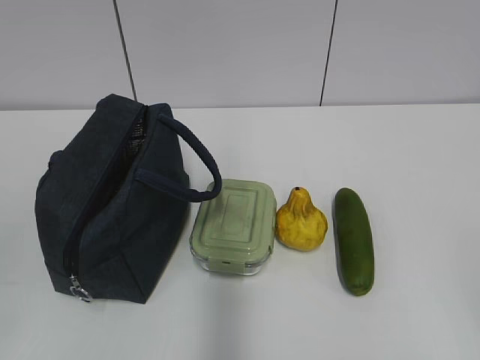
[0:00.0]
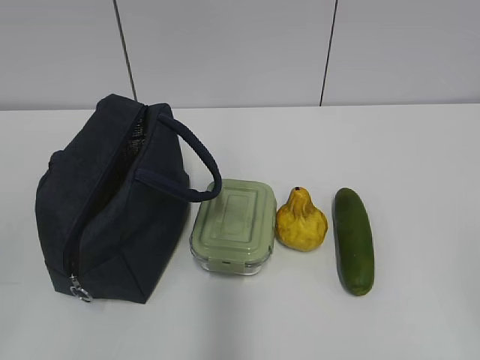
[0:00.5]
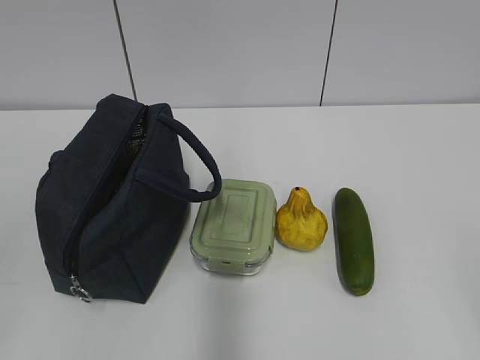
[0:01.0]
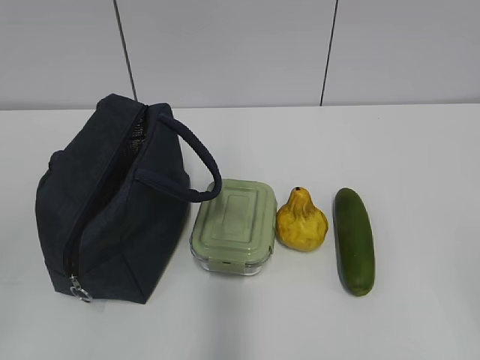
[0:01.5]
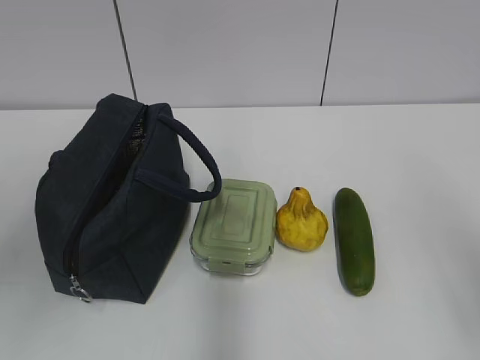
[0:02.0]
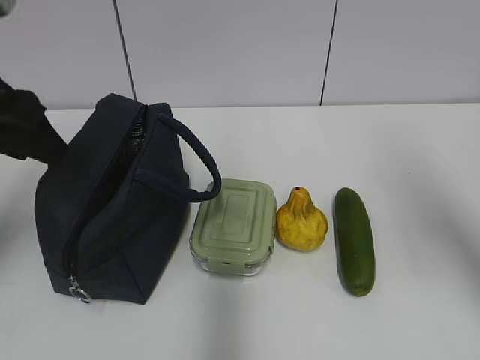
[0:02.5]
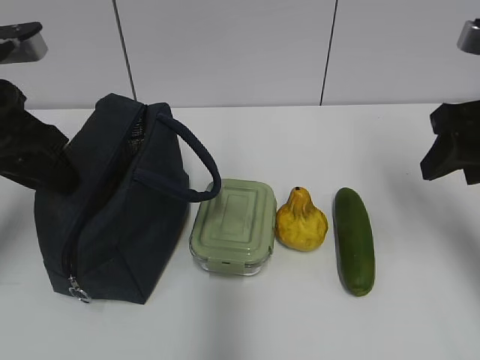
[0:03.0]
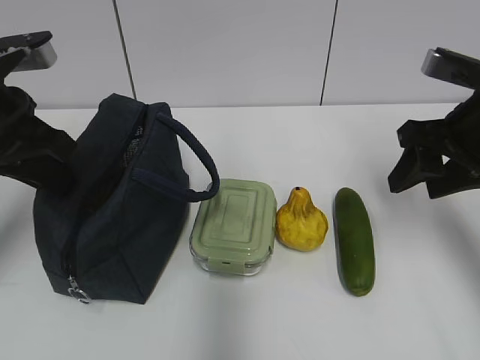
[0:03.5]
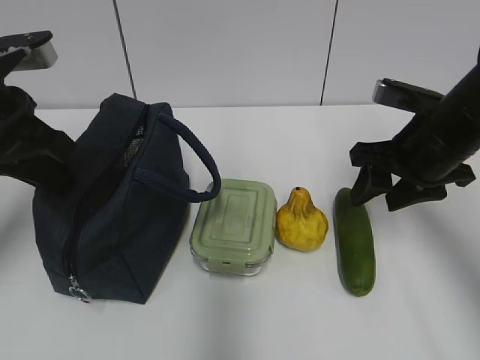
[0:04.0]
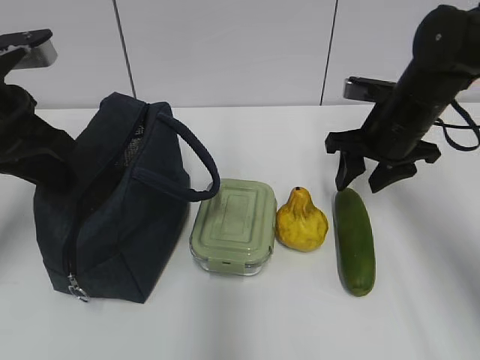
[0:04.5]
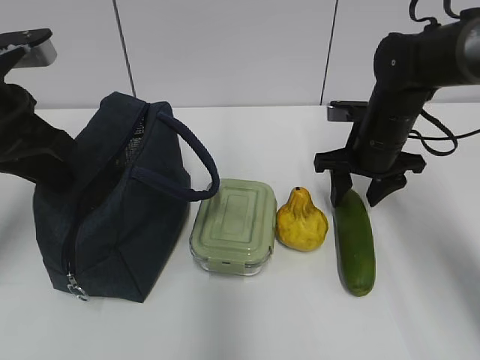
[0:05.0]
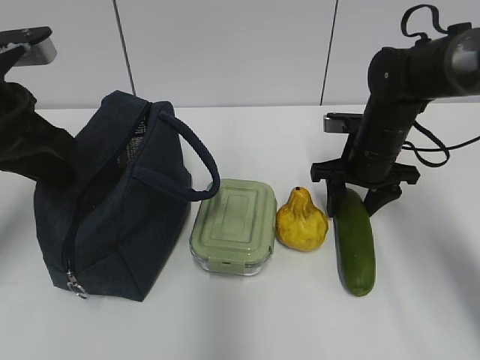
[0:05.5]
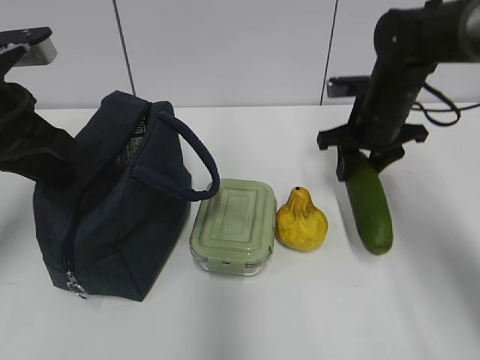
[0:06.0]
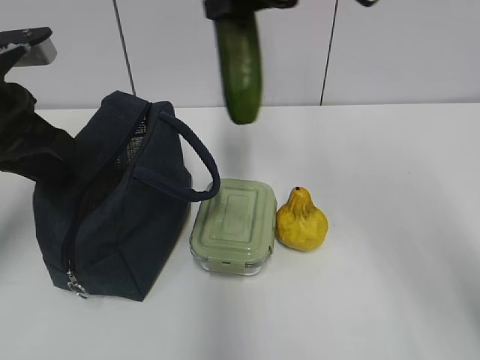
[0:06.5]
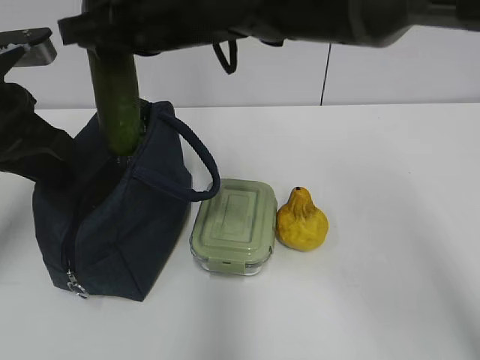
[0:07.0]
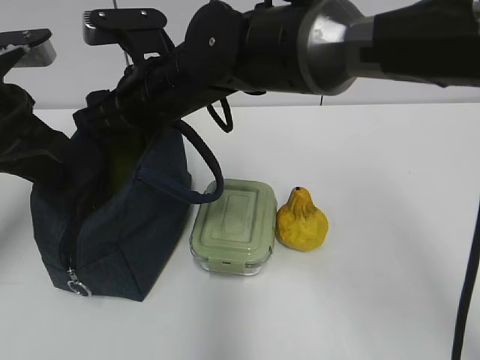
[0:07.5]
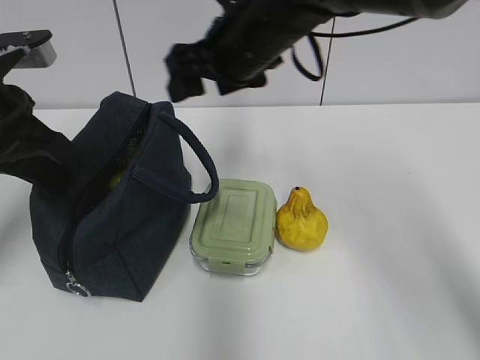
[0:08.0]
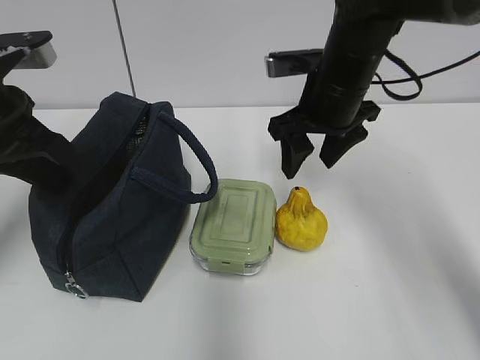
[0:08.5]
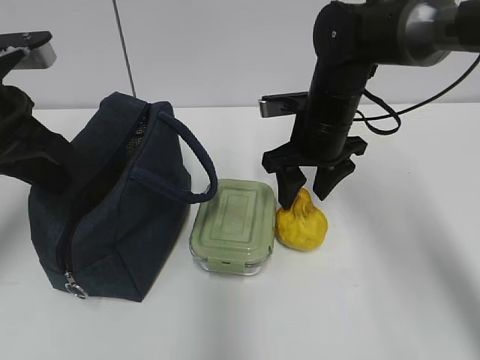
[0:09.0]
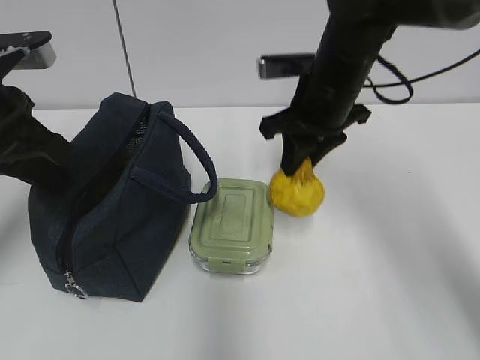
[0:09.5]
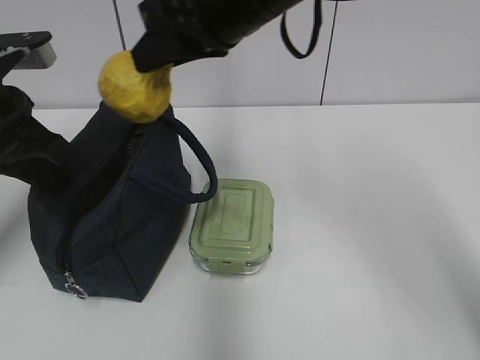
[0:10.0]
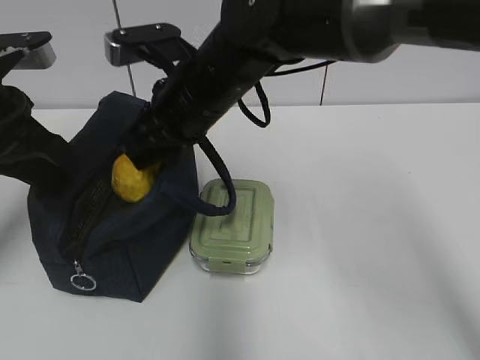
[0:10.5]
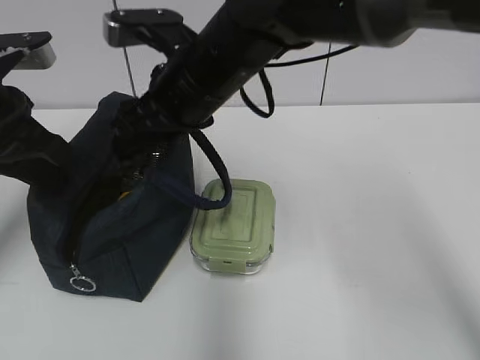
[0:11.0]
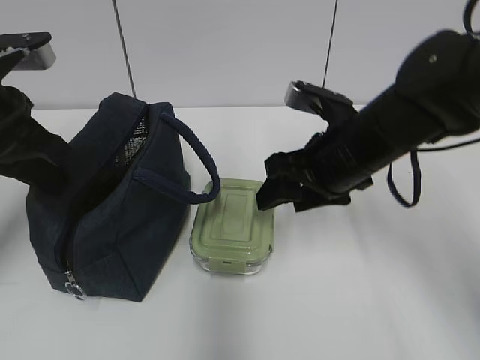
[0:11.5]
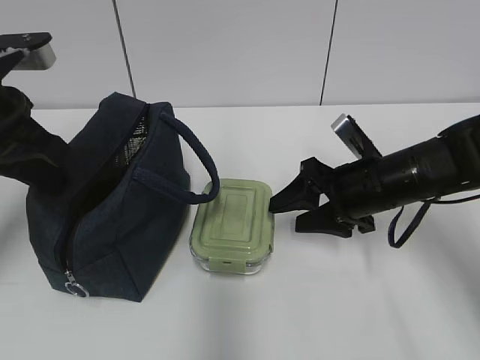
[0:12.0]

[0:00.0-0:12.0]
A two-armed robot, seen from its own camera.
Step, 0:00.0 to 0:03.0: Grab the lunch bag with your left hand.
Step, 0:03.5 to 0:05.5: Grab the cucumber with your right hand.
Step, 0:06.0 to 0:07.5: Place it into the bag with your right hand.
Step, 0:08.0 to 0:09.0: Grab the pear with your right hand.
Step, 0:09.5 to 0:10.5: Place it into the bag with your right hand.
0:02.0 to 0:04.0: The right gripper travels forward by approximately 25 cm, while the left gripper is displaced forward and downward by some 20 cm, and closes.
0:04.0 to 0:06.0: The right gripper travels forward by some 10 cm.
0:06.0 to 0:08.0: The right gripper heads to the left and upward, covering some 15 cm, and opens its fingers.
0:08.0 to 0:10.0: The right gripper heads upward and backward, covering some 10 cm, and closes its fingers.
0:10.0 to 0:12.0: The right gripper goes some 25 cm downward and to the right, and opens.

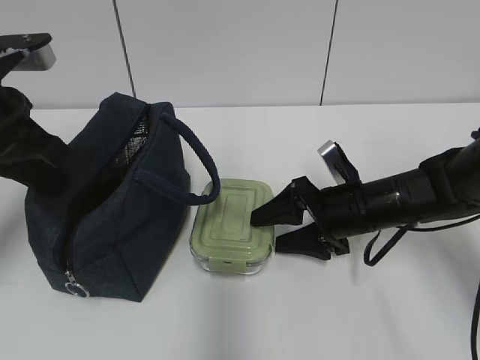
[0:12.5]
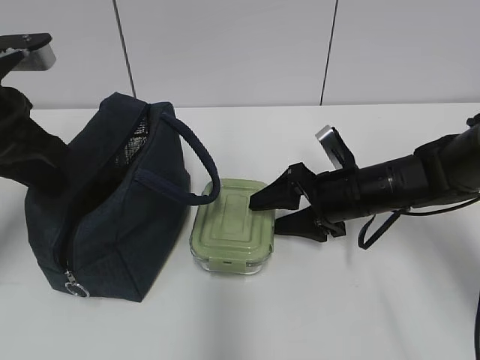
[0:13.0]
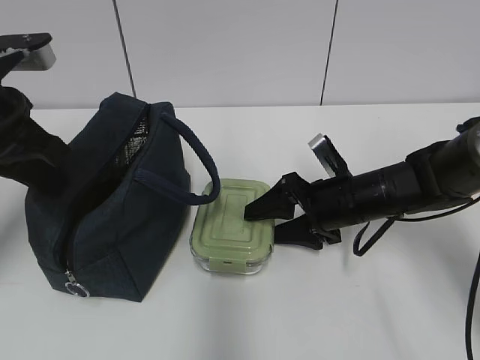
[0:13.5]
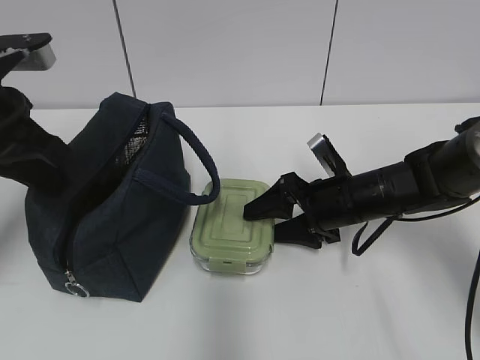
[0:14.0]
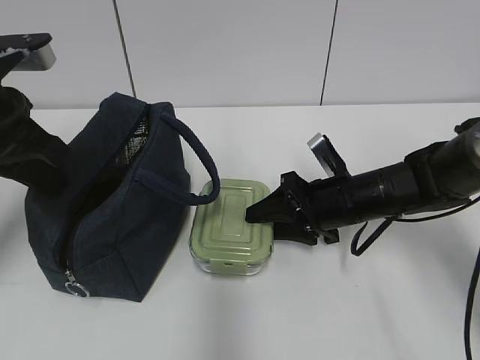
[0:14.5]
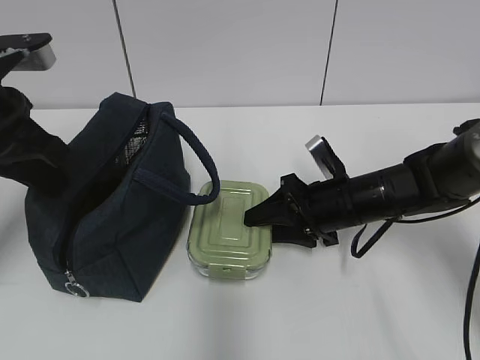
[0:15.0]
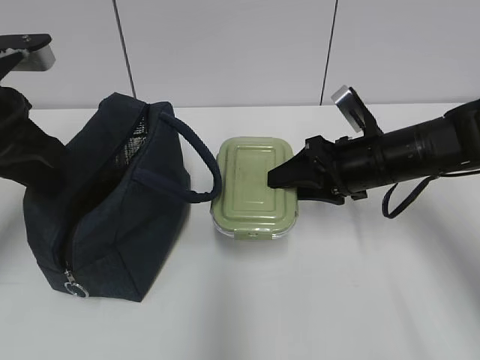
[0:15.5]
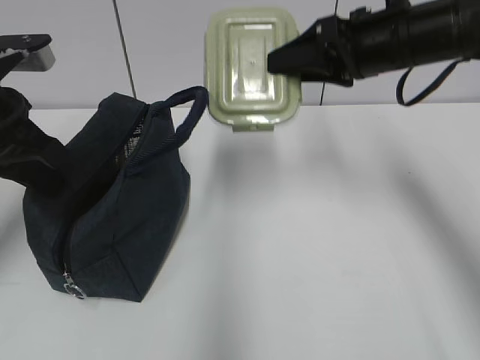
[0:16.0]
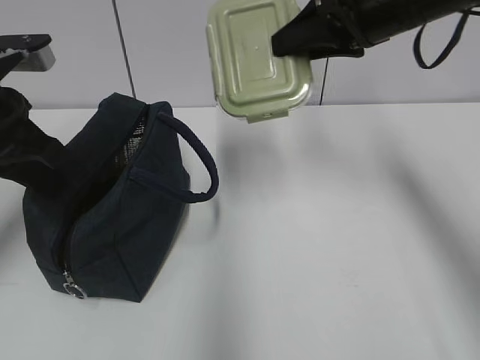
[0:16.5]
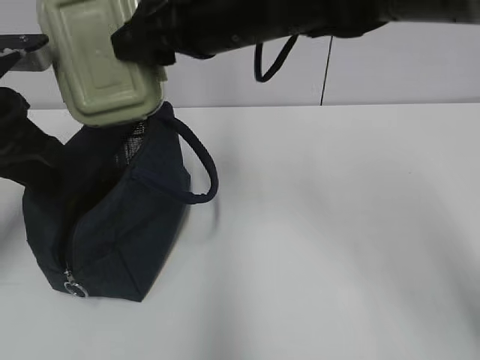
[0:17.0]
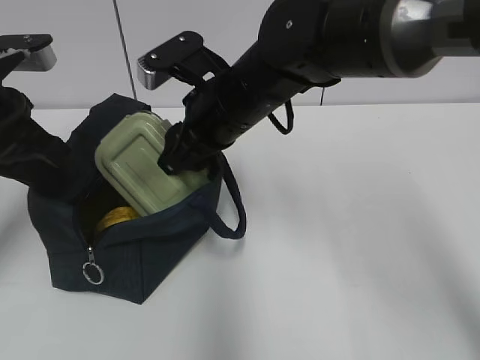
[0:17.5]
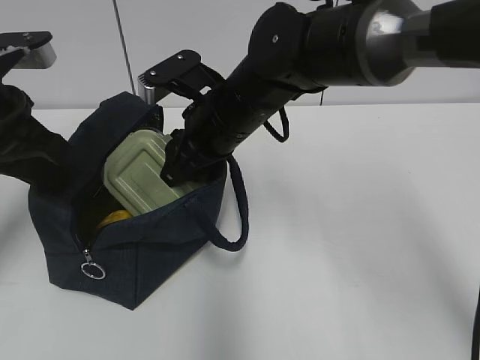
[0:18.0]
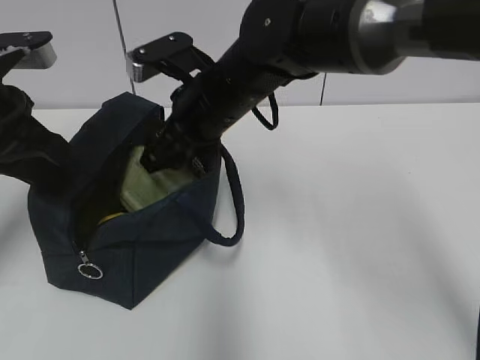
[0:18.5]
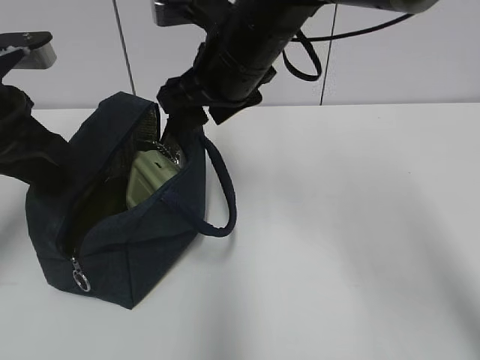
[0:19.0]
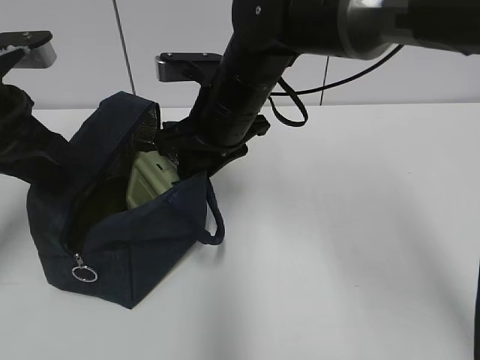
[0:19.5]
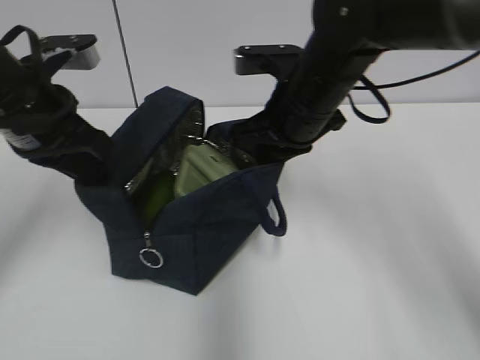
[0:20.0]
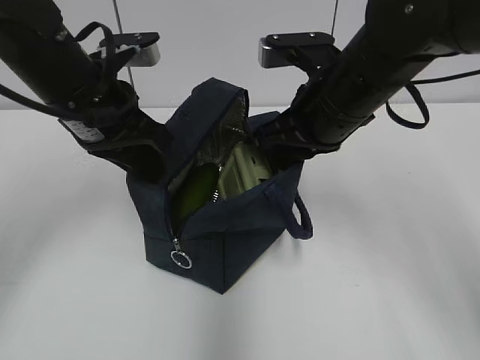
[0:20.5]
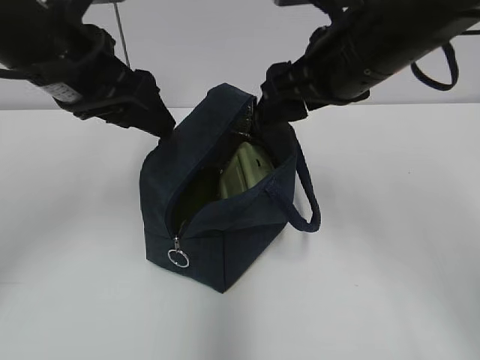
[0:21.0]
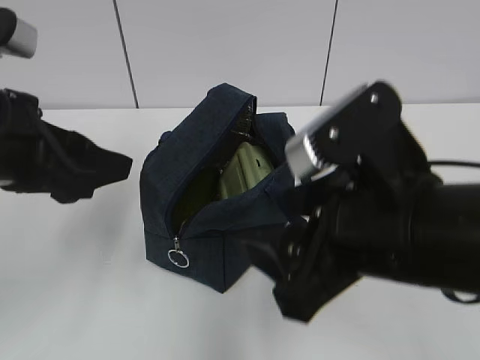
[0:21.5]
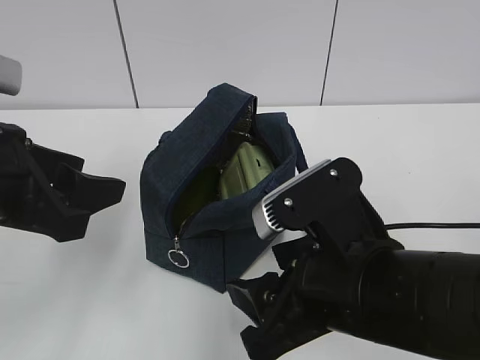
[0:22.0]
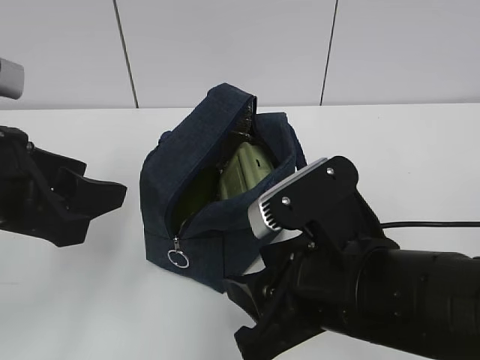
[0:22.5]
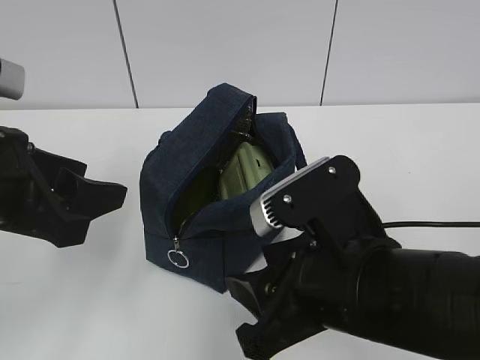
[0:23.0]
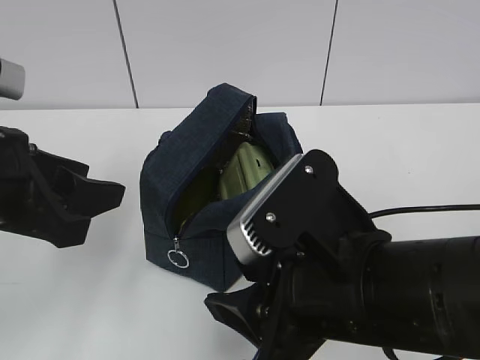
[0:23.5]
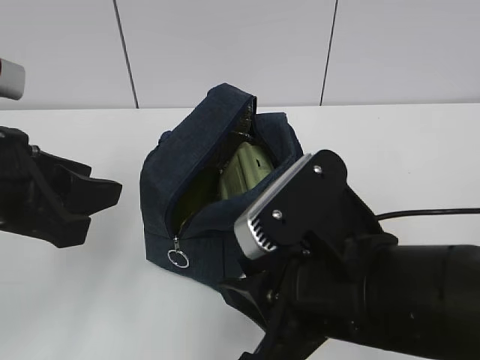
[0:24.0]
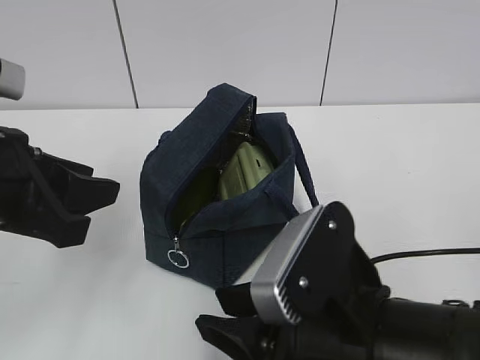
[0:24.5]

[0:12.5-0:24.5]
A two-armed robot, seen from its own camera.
Step, 0:12.5 to 0:15.0: Grab the lunch box with your right hand.
Step, 0:19.0 to 0:19.5: Grab the lunch bag with your right hand.
Step, 0:20.0 to 0:20.5: Move the lunch bag to the right.
0:12.5 to 0:14.5: The right gripper closes its fingers.
0:14.5 to 0:16.5: The right gripper is displaced upward by roughly 25 cm.
0:16.5 to 0:18.5: The right gripper goes approximately 20 cm to the left and downward, and opens.
0:18.5 to 0:20.5: The grippers both shift to the right by about 10 cm. The right gripper closes up.
0:20.5 to 0:22.5: Both grippers travel together backward, about 15 cm. The left gripper opens up; the right gripper opens its fingers.
0:22.5 to 0:24.5: The grippers make only small movements.

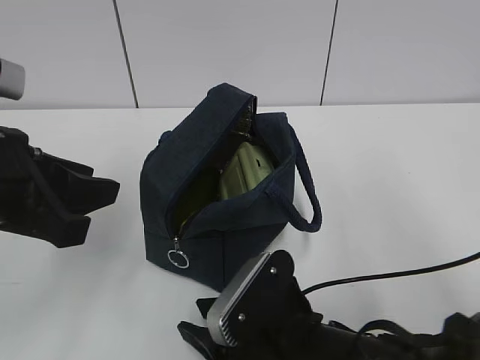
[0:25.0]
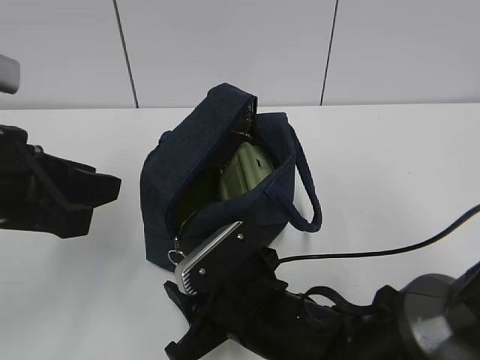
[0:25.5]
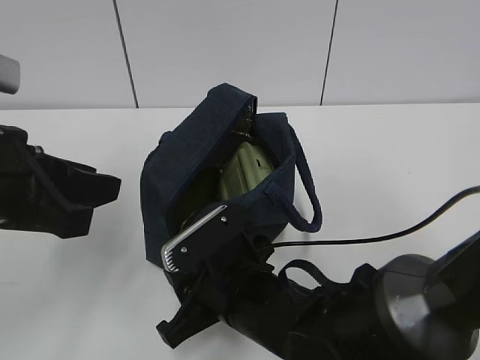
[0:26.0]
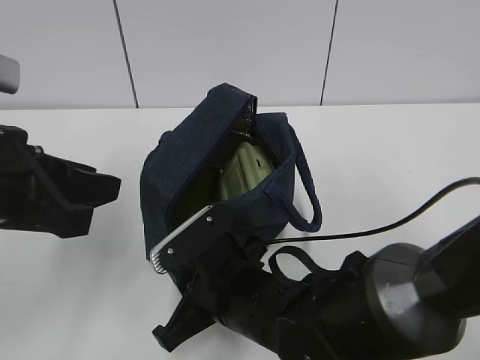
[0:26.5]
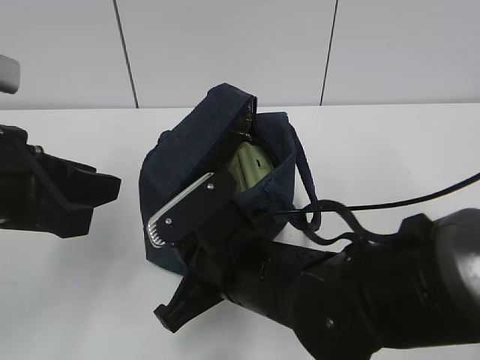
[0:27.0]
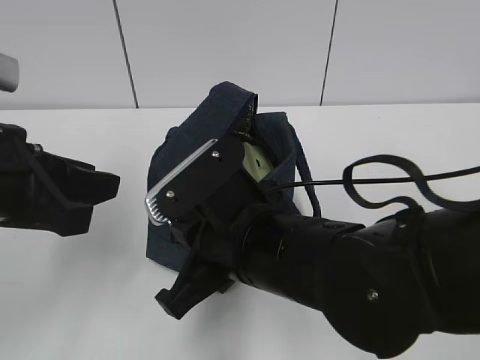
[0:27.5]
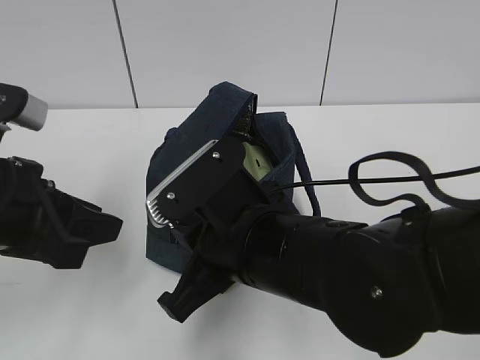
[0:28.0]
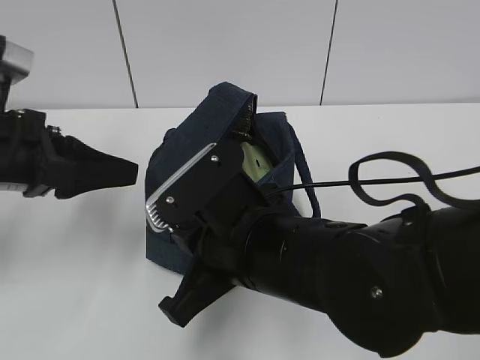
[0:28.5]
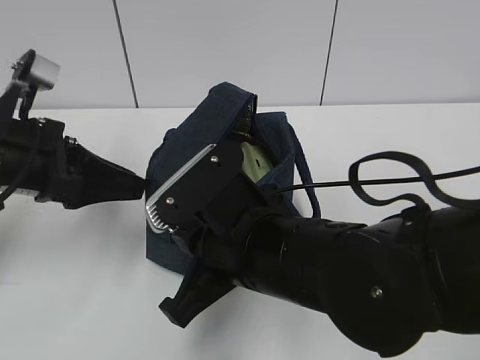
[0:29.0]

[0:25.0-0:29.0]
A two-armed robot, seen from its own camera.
0:25.0 to 0:27.0: The right gripper heads forward, covering about 5 cm, and closes its fingers.
0:27.0 to 0:29.0: The left gripper is displaced forward by about 10 cm.
